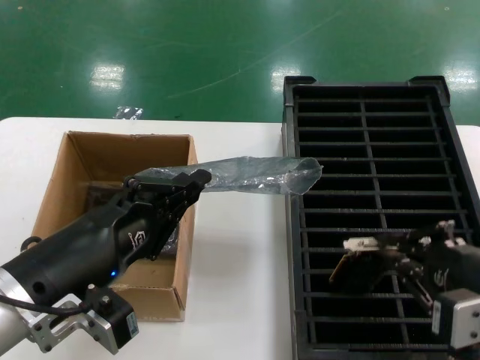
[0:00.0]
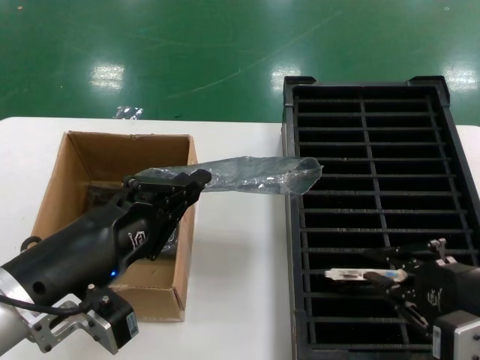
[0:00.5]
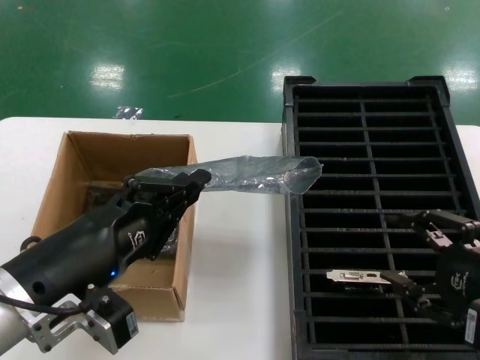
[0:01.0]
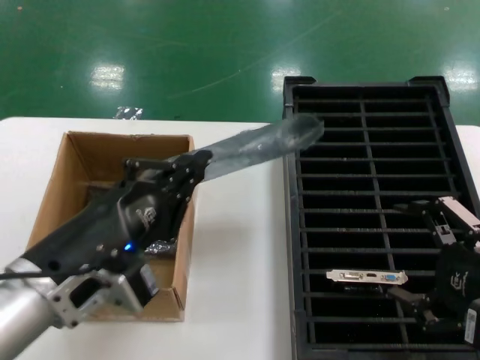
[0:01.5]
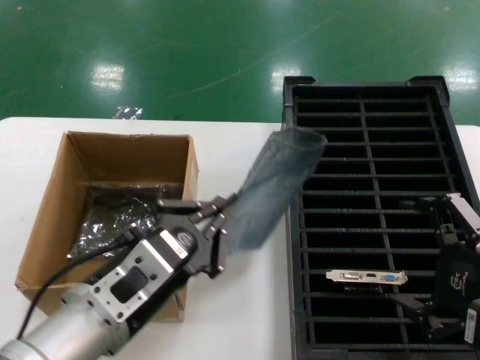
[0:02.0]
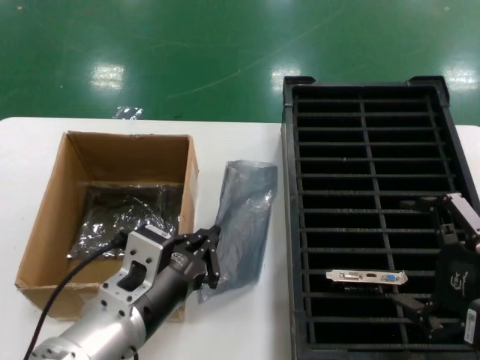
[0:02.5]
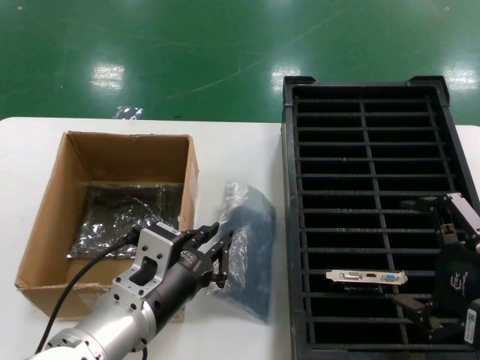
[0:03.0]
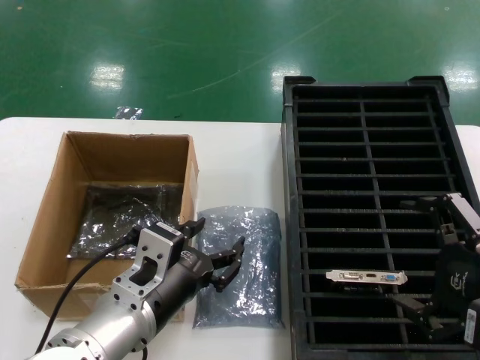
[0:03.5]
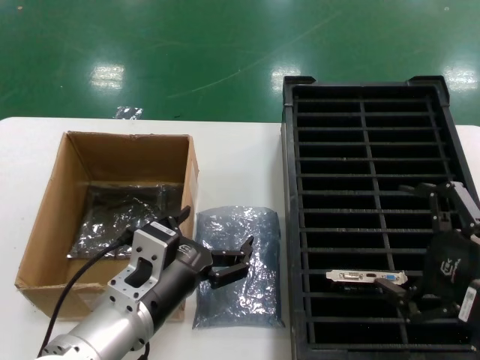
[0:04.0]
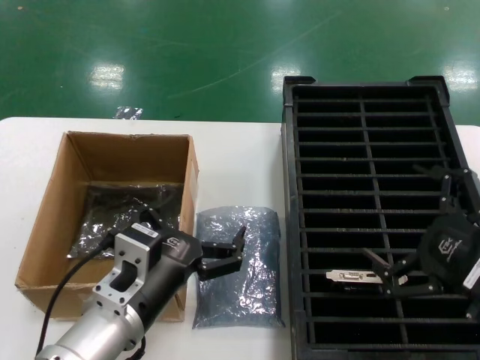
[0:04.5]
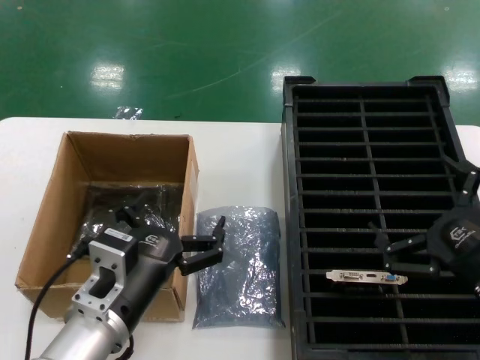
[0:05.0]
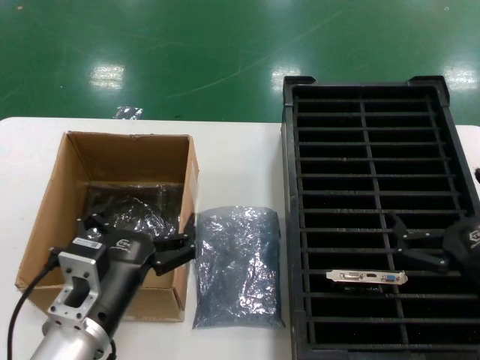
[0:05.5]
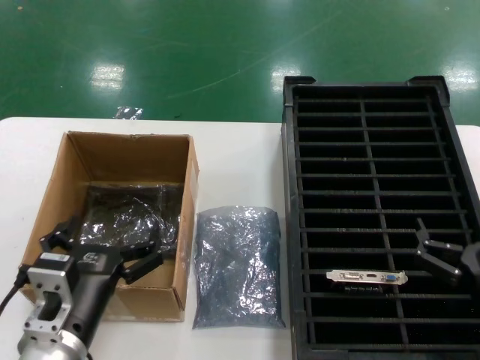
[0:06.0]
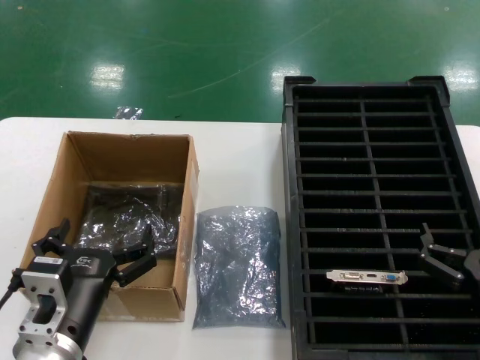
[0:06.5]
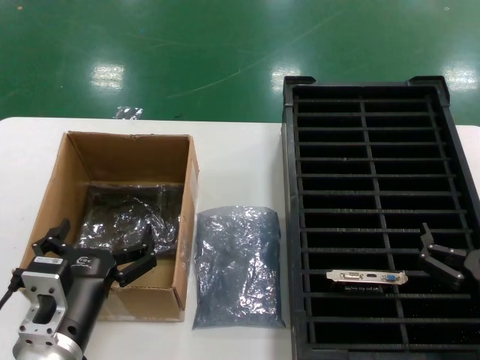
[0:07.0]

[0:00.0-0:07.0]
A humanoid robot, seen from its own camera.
Task of the whole recording: take out graphics card from box remove packaging put into black container.
Step, 0:01.0 to 0:03.0: Place the down the bag.
0:00.0 to 0:02.0: The left hand shifts roughly 5 cm to the right.
0:02.0 to 0:03.5: The left hand heads downward, covering some 5 cm.
0:03.5 to 0:05.0: The right hand shifts roughly 5 cm downward.
0:05.0 to 0:07.0: The left hand shifts by roughly 5 cm, while the right hand shifts roughly 10 cm downward.

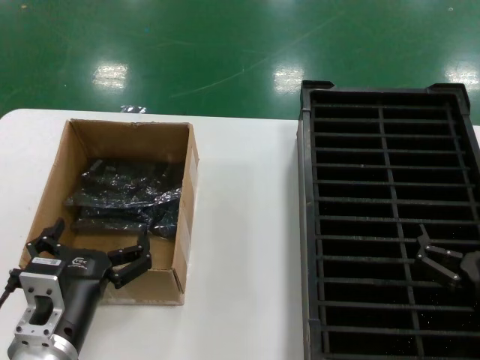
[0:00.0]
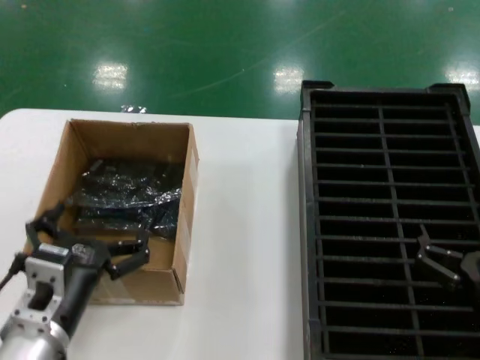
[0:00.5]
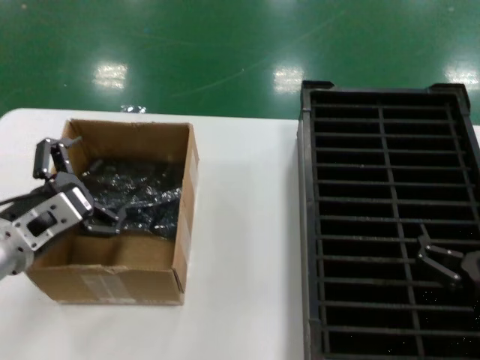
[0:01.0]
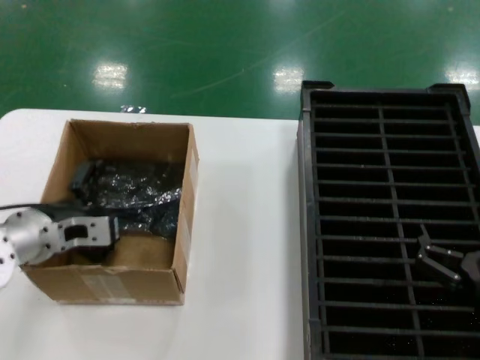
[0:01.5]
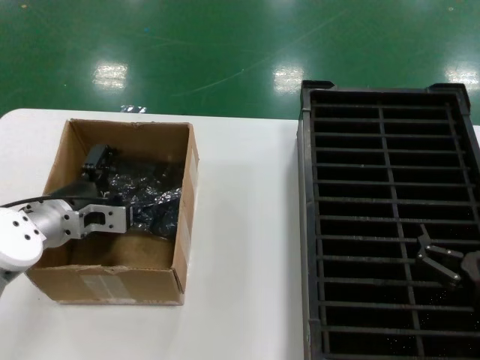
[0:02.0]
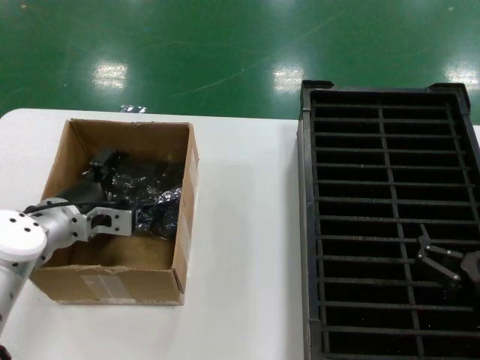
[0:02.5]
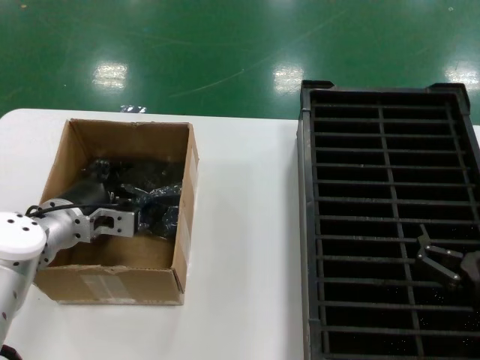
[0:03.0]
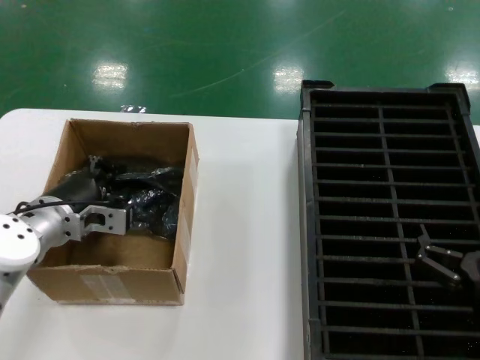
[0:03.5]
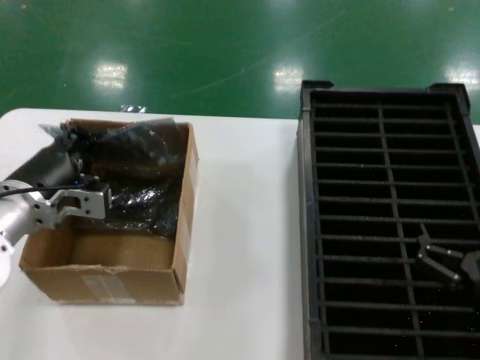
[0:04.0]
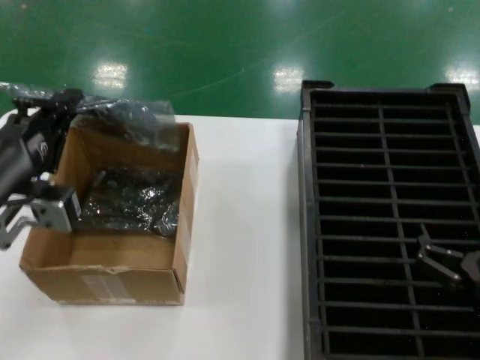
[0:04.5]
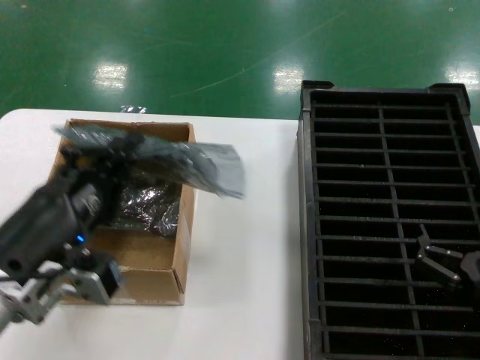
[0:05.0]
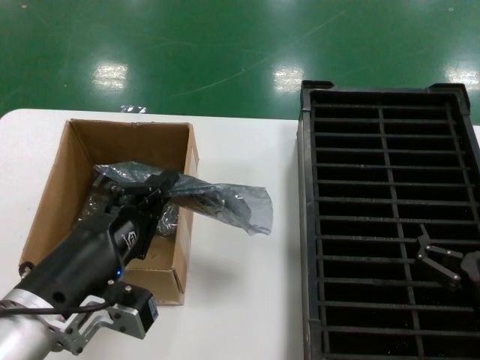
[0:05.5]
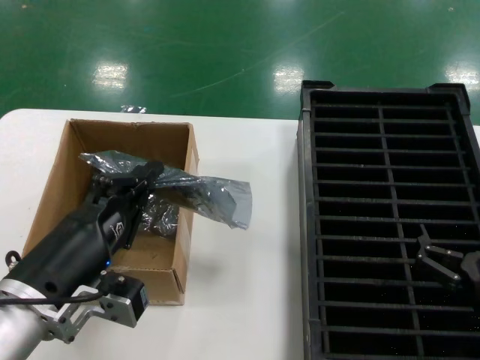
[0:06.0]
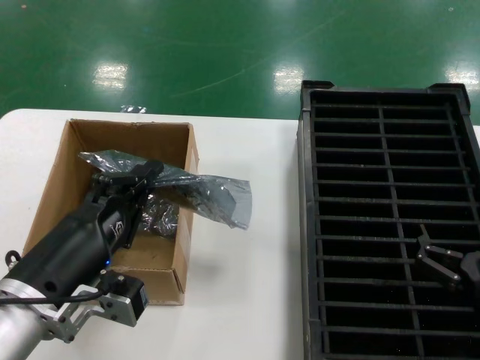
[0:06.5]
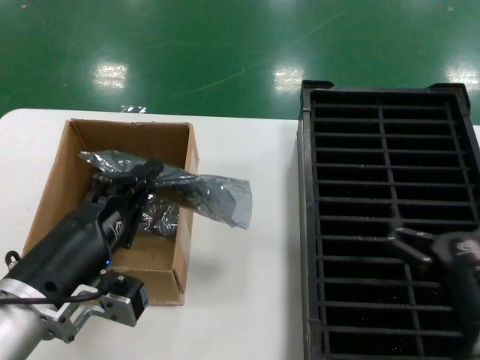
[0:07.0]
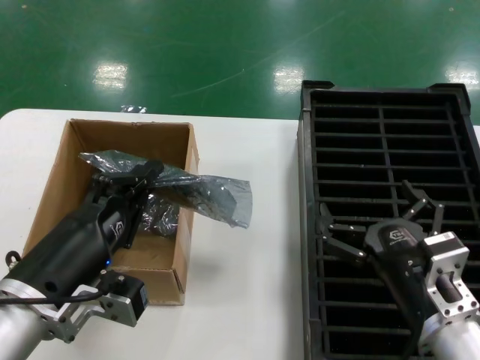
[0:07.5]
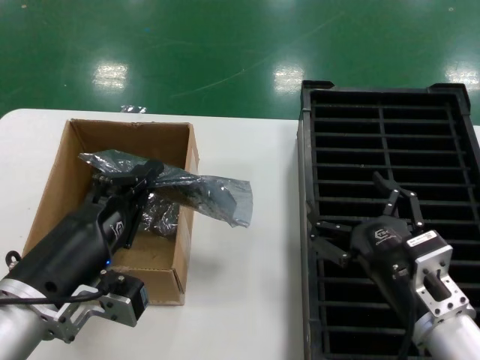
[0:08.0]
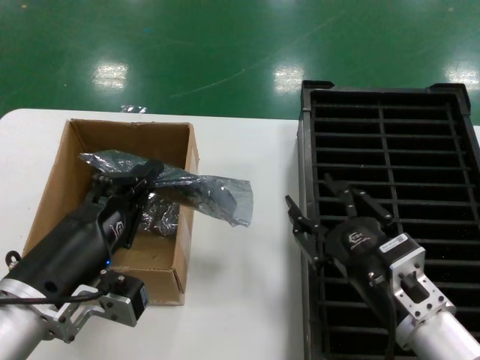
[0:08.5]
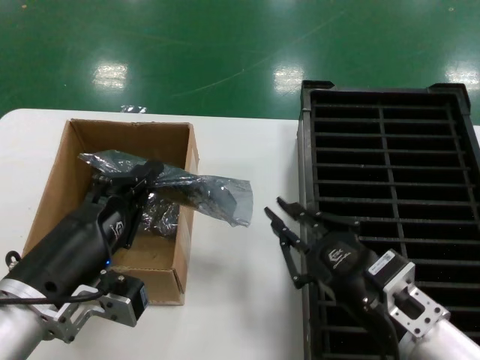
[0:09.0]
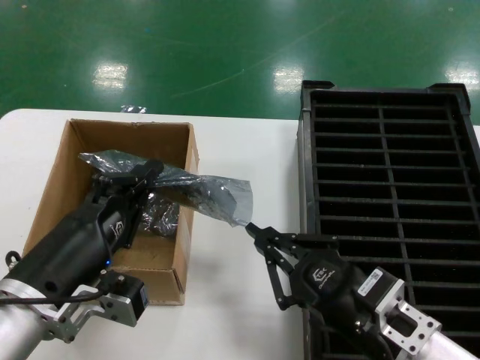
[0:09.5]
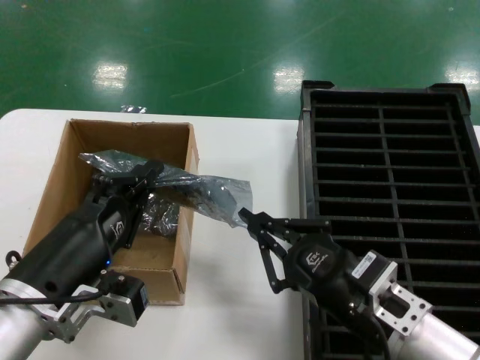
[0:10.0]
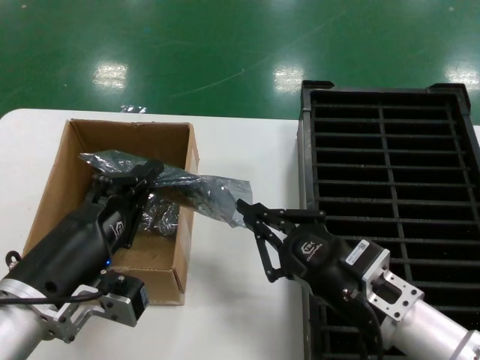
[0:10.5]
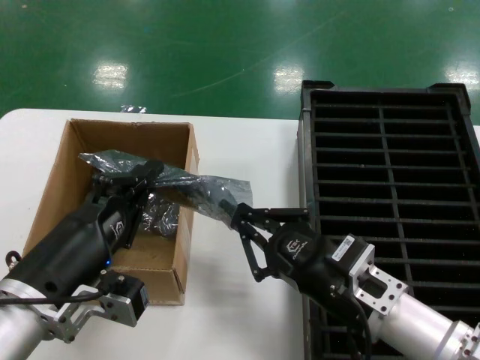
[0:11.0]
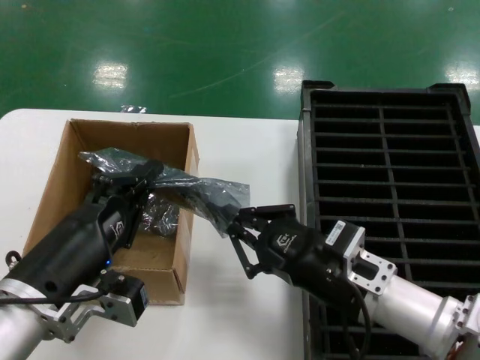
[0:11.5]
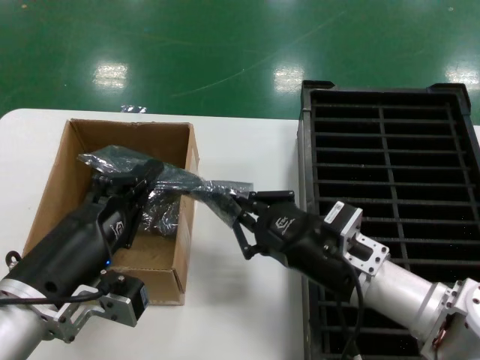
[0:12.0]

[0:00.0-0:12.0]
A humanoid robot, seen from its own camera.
Task of the whole recording: take out graphics card from box remove packaging put into black container.
Step, 0:00.0 to 0:03.0: Grasp the bag.
Step, 0:03.5 to 0:06.5: Lift the bag.
0:00.0 to 0:02.0: The left hand goes about 20 cm forward and to the left.
0:02.0 to 0:04.0: The left hand ends up approximately 5 cm from where it was.
0:04.0 to 0:06.0: The left hand heads backward and to the right, covering approximately 20 cm.
0:06.0 to 0:08.0: The right hand heads to the left, covering roughly 10 cm.
0:10.0 to 0:12.0: The right hand goes approximately 10 cm forward.

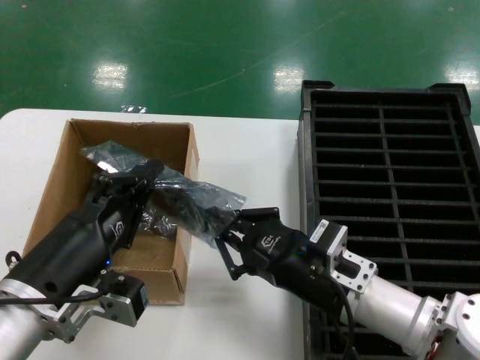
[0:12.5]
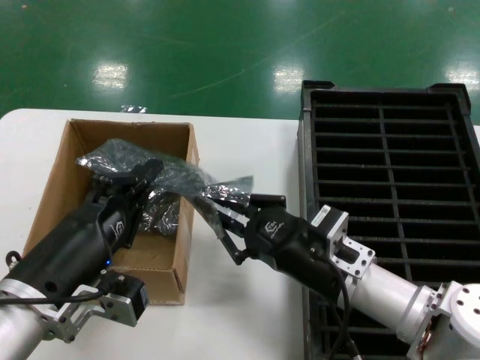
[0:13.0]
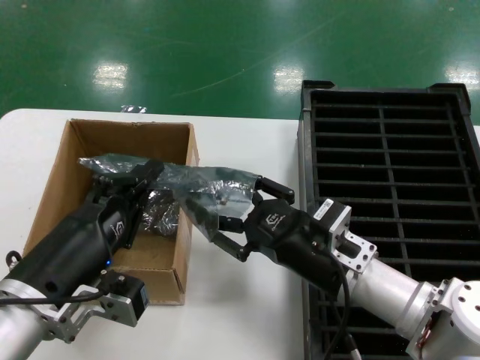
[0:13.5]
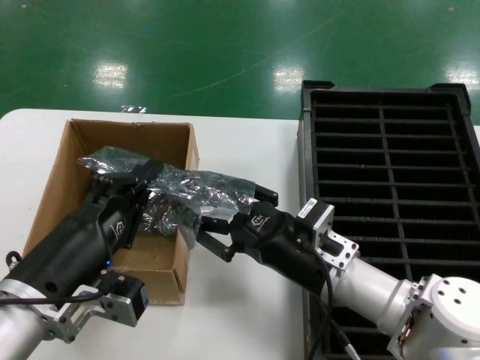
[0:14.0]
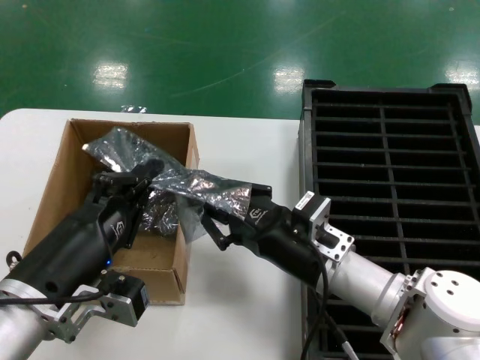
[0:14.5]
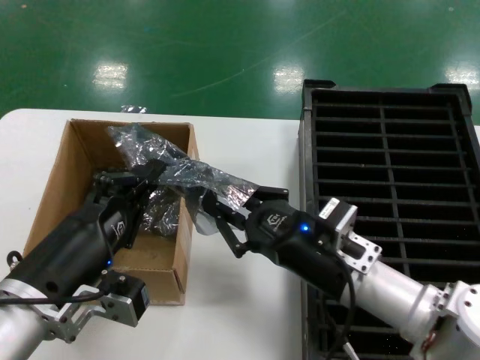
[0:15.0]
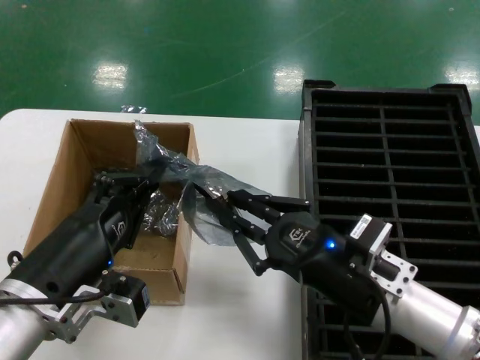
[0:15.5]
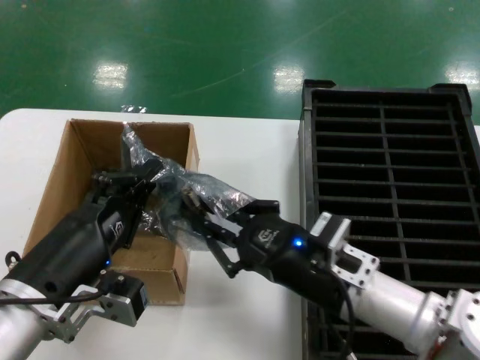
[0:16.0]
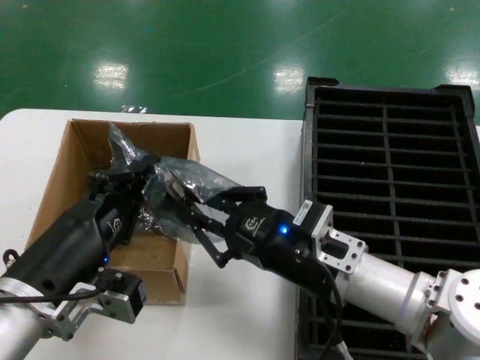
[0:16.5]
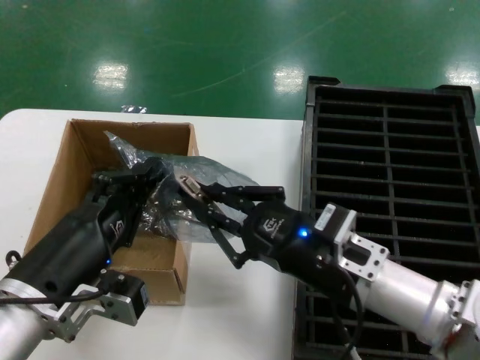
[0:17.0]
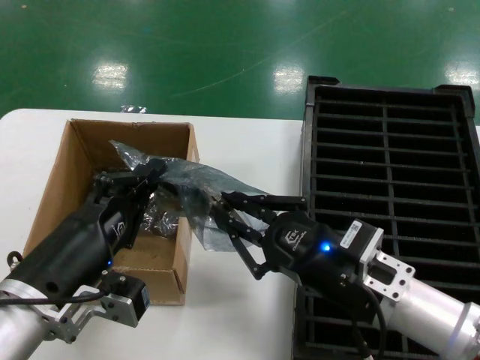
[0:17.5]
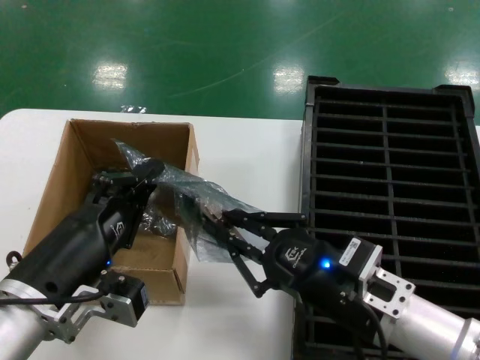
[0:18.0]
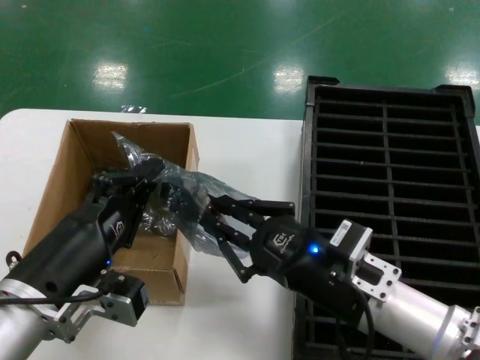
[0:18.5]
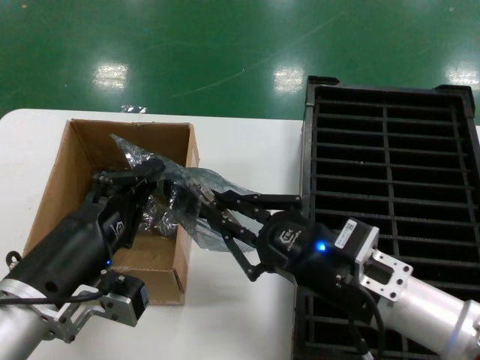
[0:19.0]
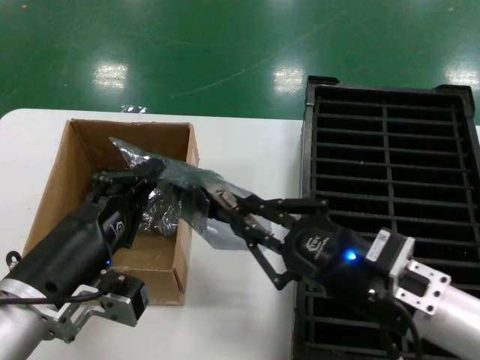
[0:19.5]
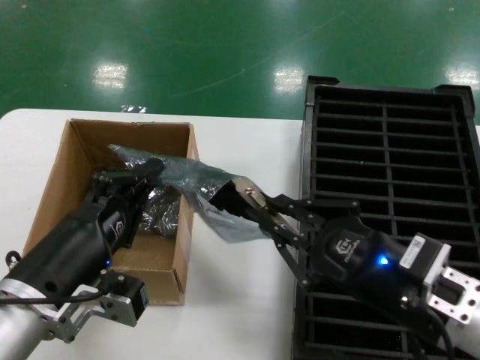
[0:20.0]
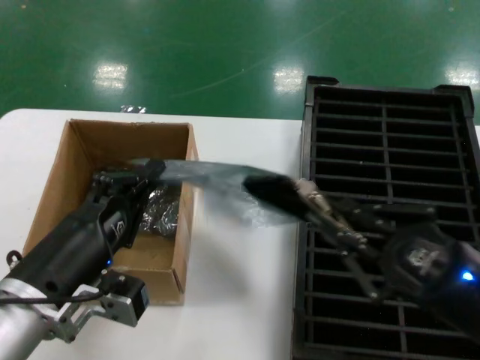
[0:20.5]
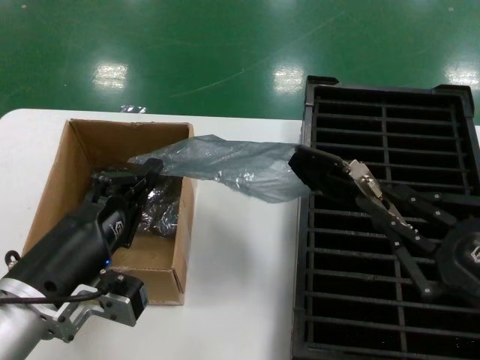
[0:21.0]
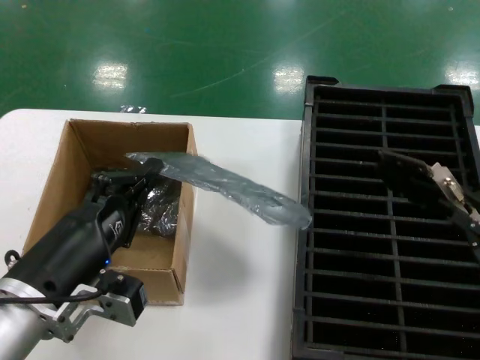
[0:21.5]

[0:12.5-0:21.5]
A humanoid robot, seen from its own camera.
Task of the whole recording: take out graphics card from box remove packaging put into black container.
Step, 0:12.5 to 0:21.0: Take out the hard disk of the bag.
0:12.5 to 0:14.5: There are only small adjustments of the hands.
0:14.5 to 0:17.0: The right hand changes place by about 5 cm.
0:17.0 to 0:19.5: The right hand travels backward by approximately 5 cm.
0:19.5 to 0:21.5: The right hand goes about 20 cm to the right and backward.
